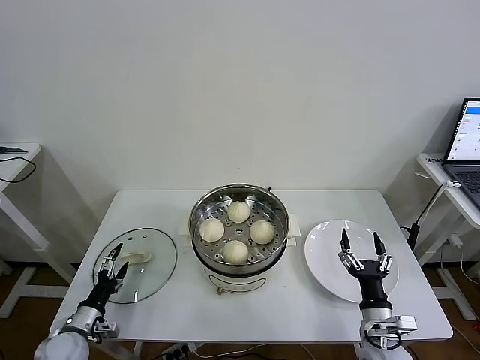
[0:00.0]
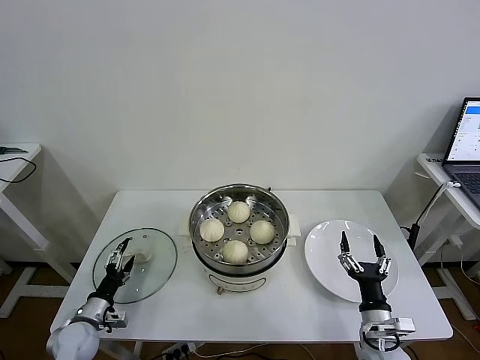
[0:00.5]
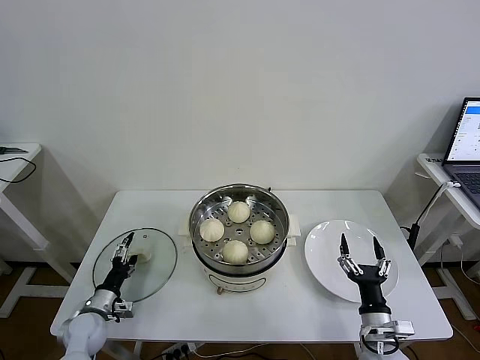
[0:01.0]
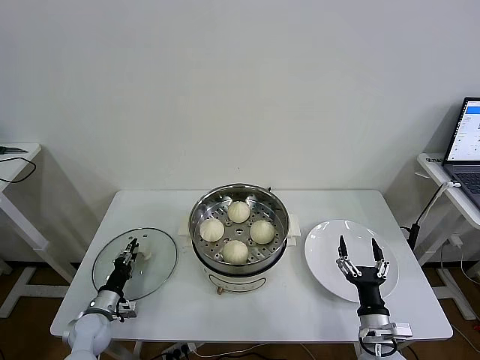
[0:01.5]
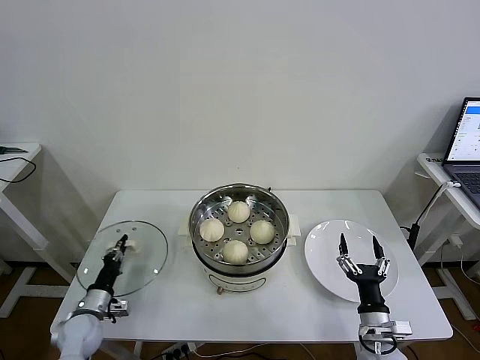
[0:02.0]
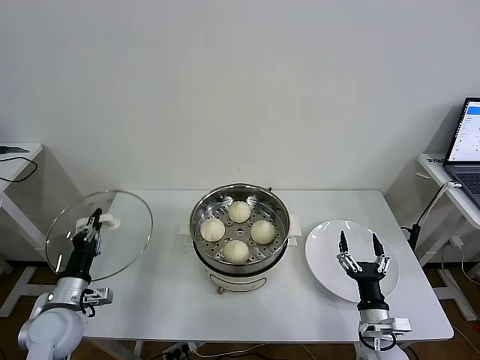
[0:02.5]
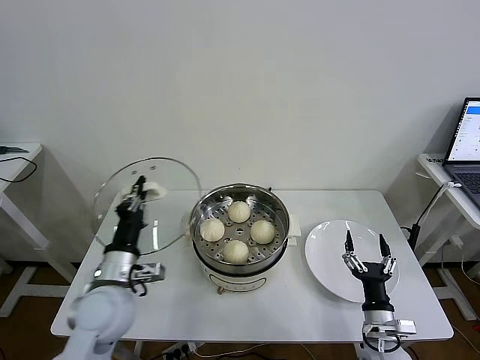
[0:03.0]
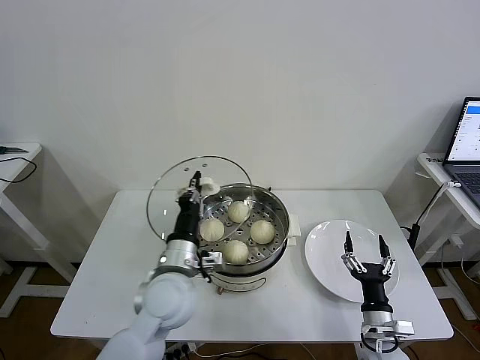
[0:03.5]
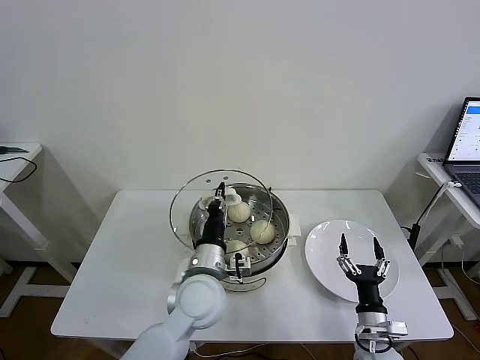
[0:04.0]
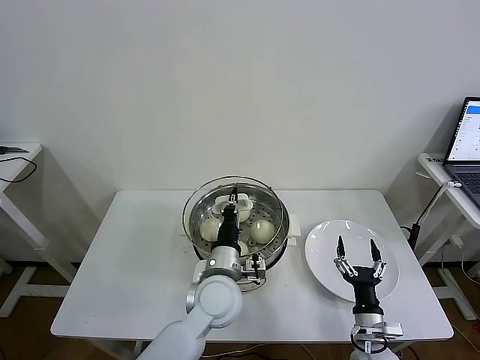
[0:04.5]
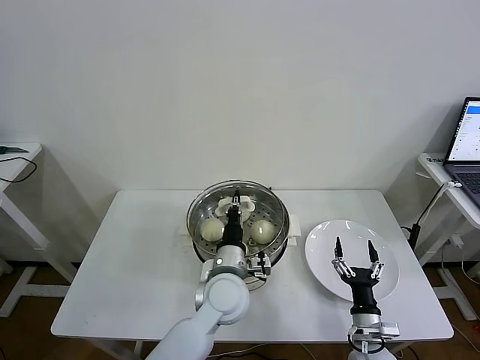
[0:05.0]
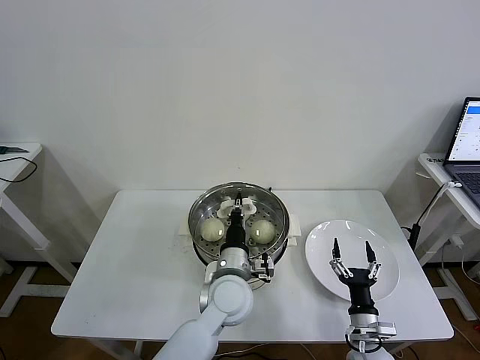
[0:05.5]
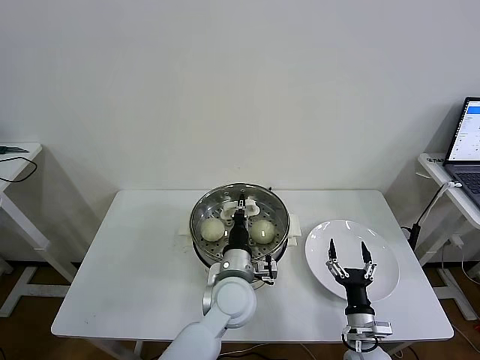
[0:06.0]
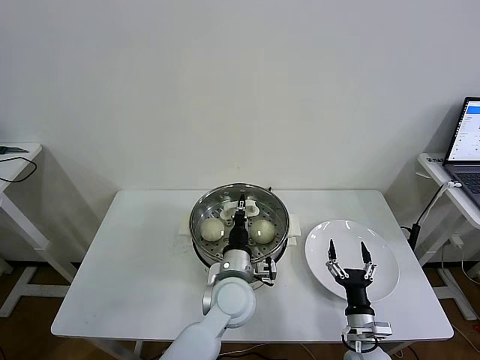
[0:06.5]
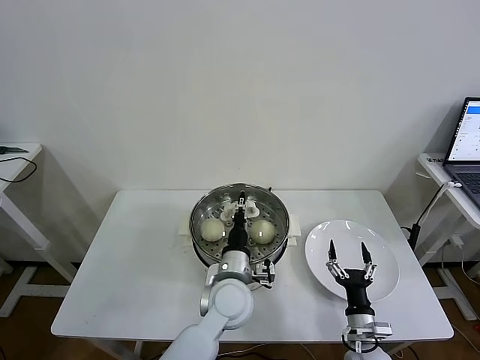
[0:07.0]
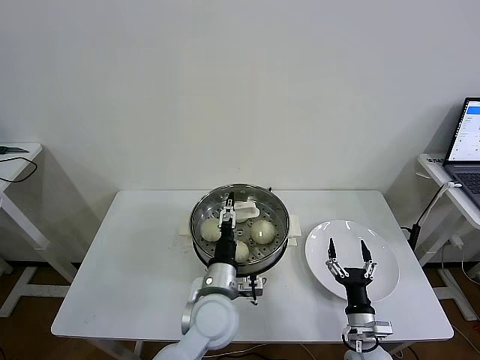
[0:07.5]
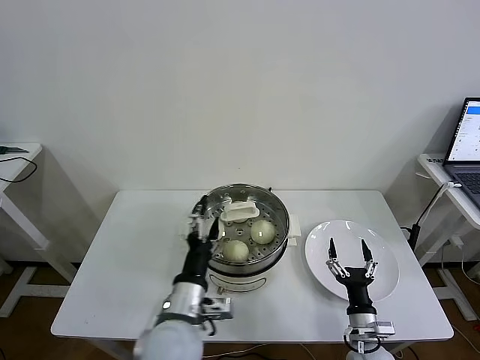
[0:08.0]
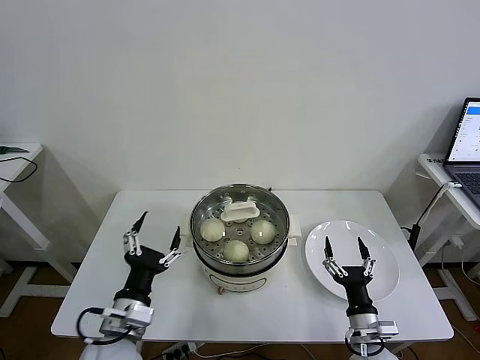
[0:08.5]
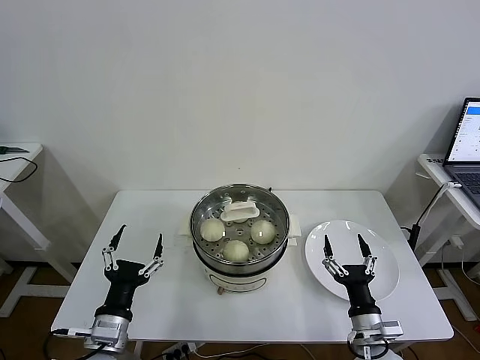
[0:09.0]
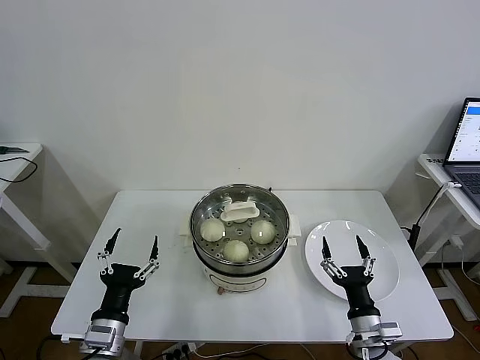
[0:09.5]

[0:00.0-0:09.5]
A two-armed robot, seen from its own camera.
Task of the whole recording: take steamed baozi put them in steamer then cover it.
Step, 0:02.0 to 0:07.5: Place the pot lid on the steamer with left gripper.
0:00.0 to 0:02.0: The left gripper moves roughly 5 cm, and closes up.
0:02.0 to 0:04.0: The left gripper is displaced to the right and upward by about 35 cm.
0:04.0 to 0:05.5: The left gripper travels to the right by some 5 cm.
0:05.5 to 0:07.5: The left gripper opens its fingers.
0:07.5 to 0:09.5: The left gripper shifts about 25 cm to the left and backward, while the right gripper shifts about 5 cm upward.
